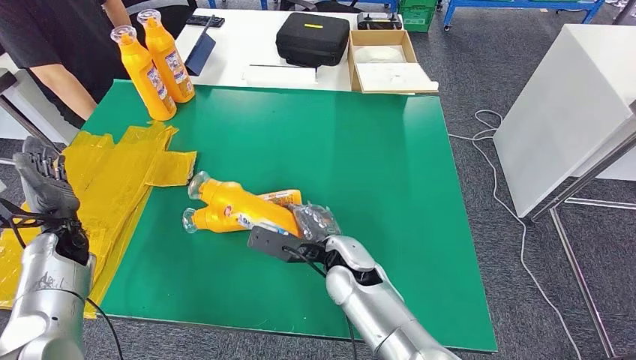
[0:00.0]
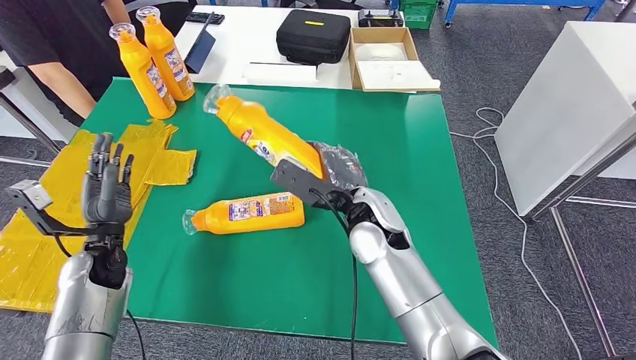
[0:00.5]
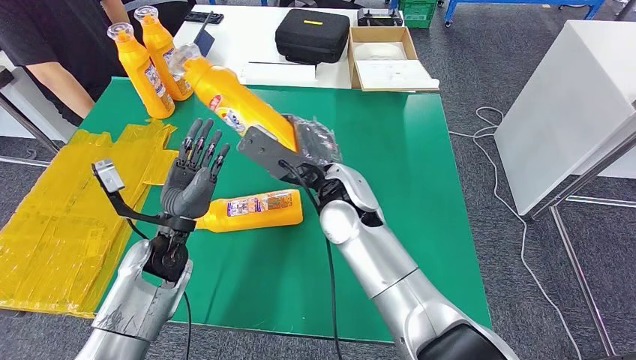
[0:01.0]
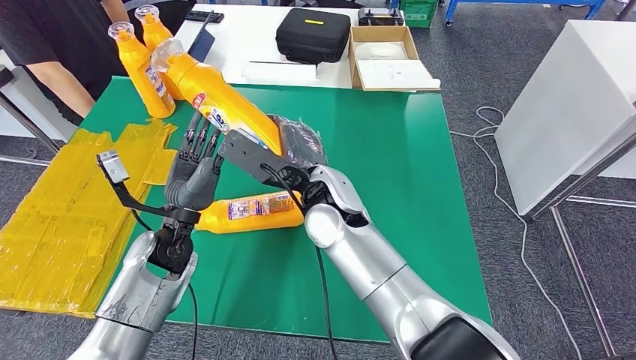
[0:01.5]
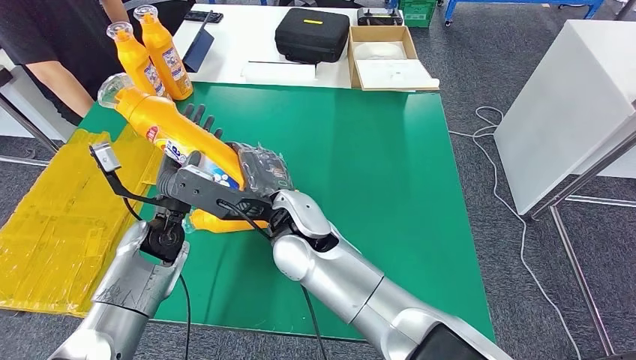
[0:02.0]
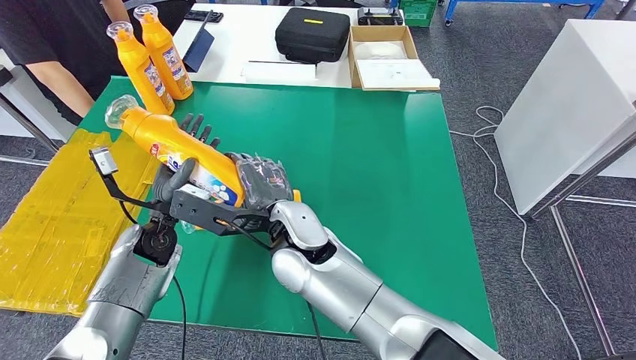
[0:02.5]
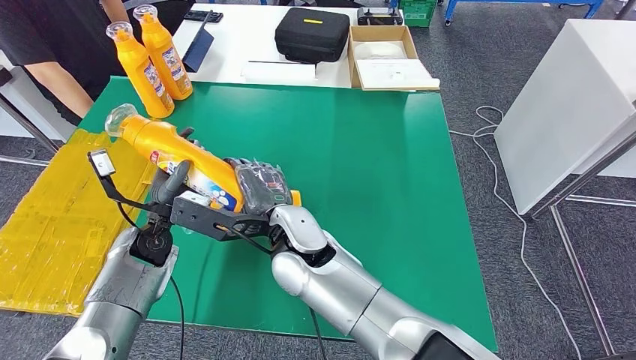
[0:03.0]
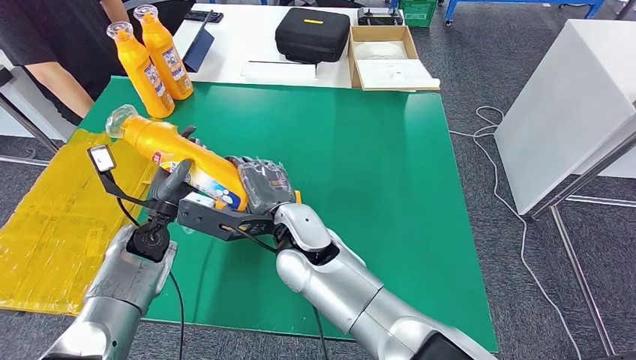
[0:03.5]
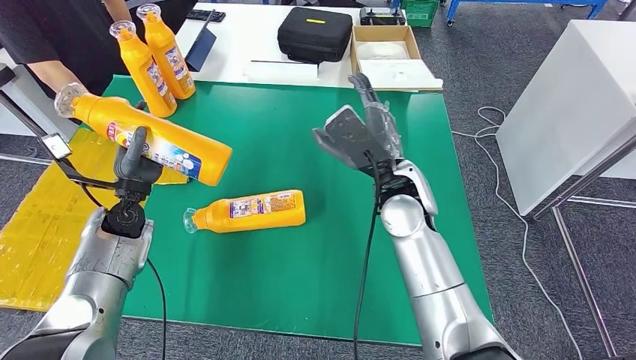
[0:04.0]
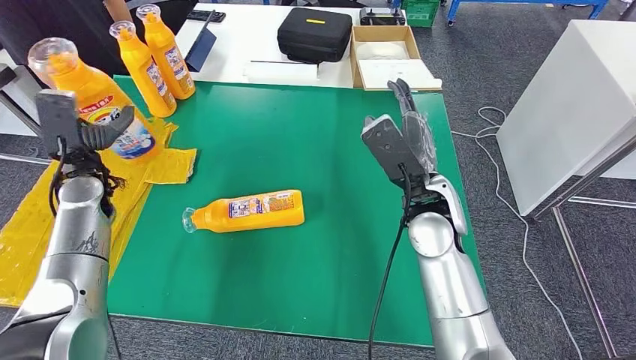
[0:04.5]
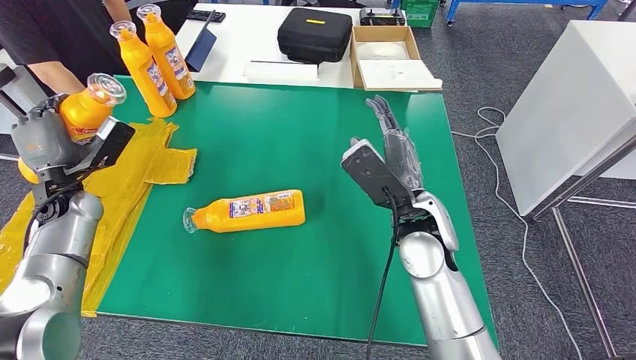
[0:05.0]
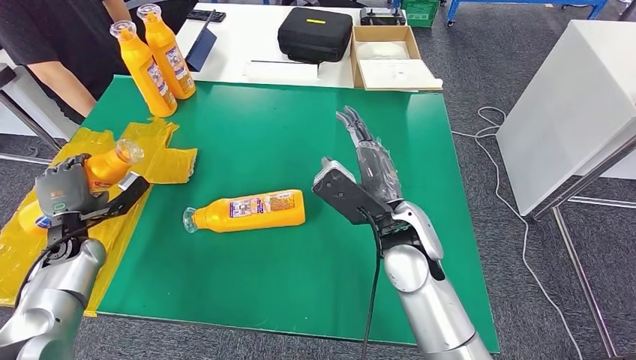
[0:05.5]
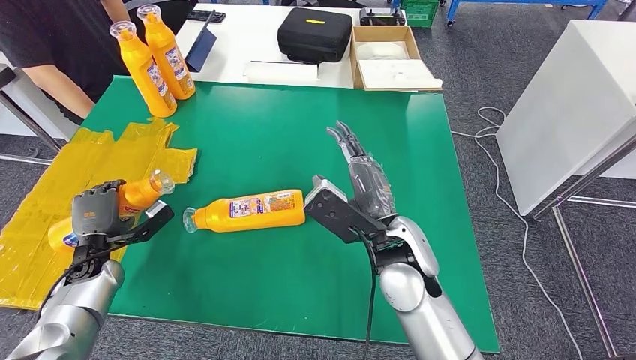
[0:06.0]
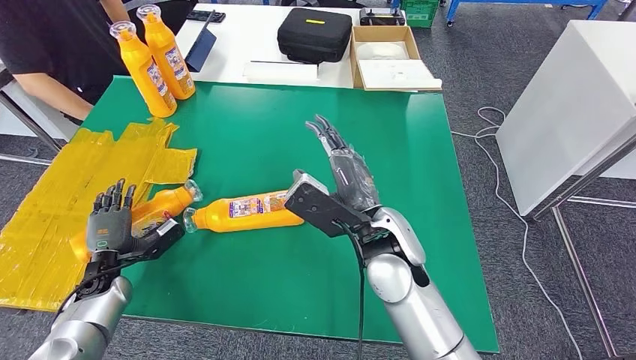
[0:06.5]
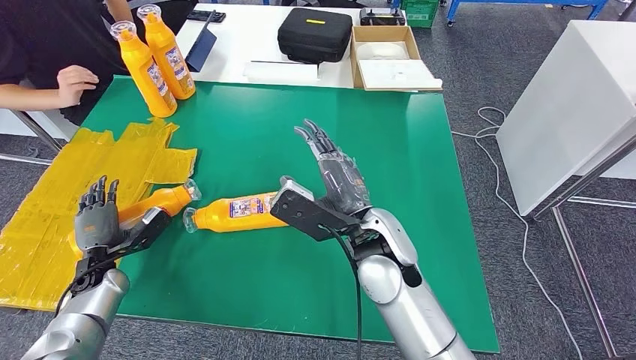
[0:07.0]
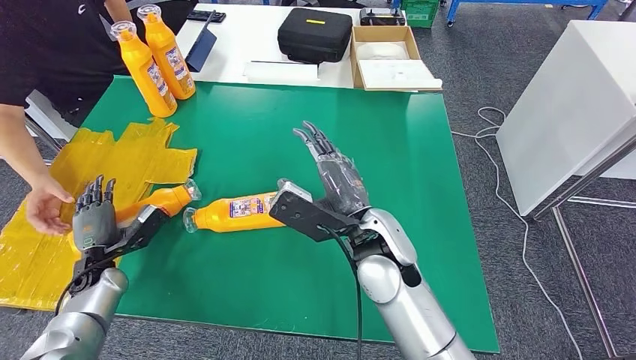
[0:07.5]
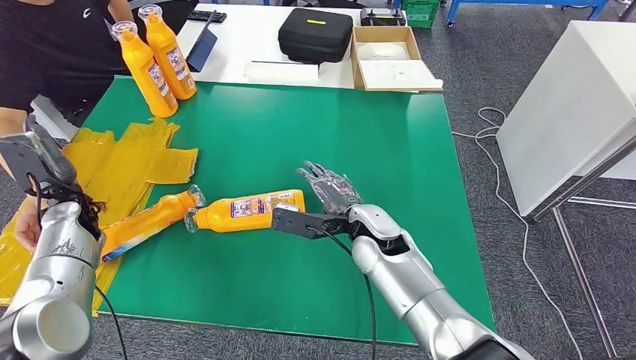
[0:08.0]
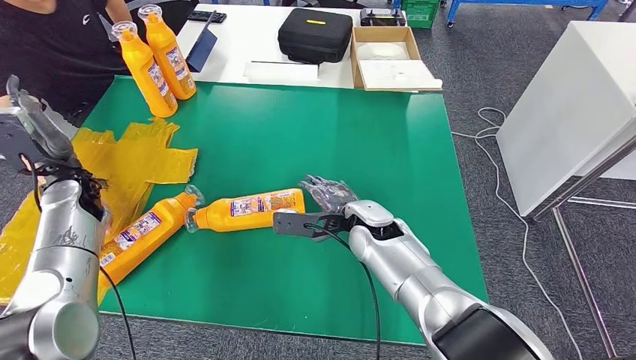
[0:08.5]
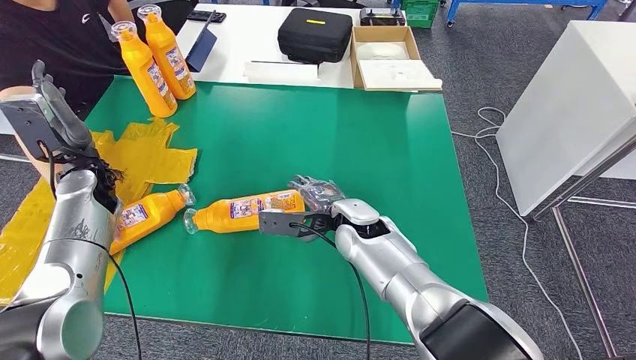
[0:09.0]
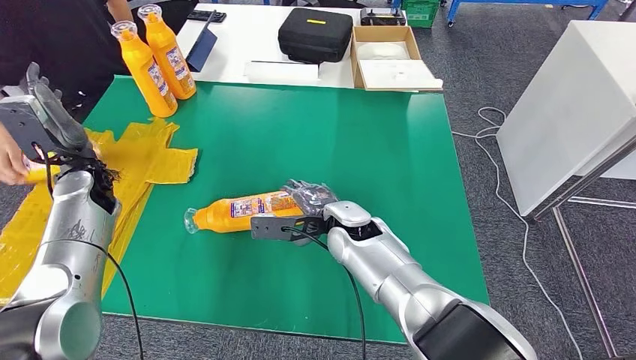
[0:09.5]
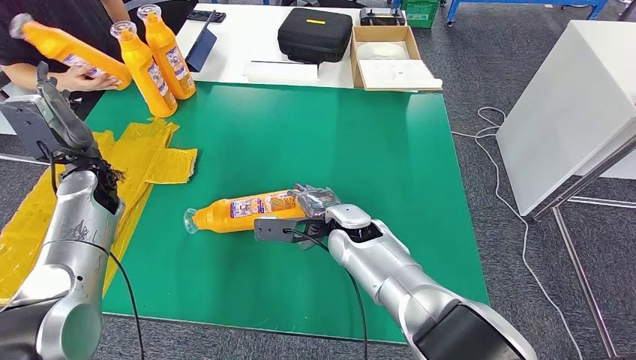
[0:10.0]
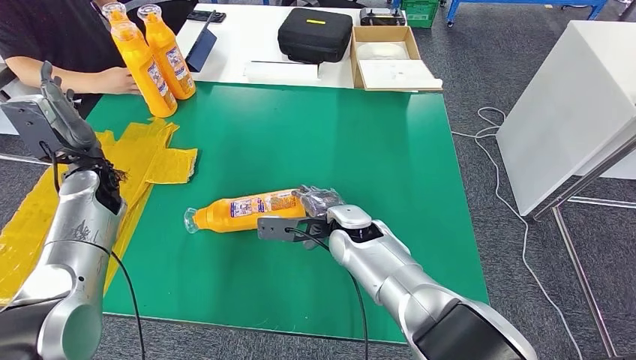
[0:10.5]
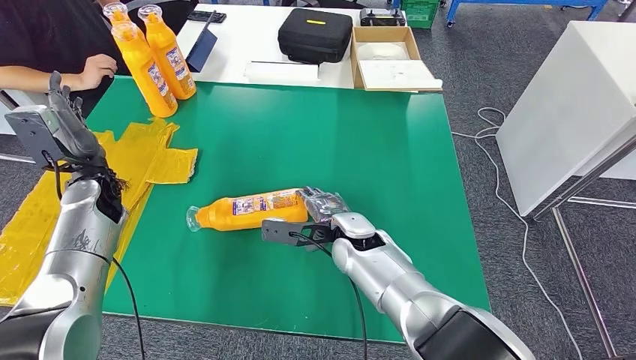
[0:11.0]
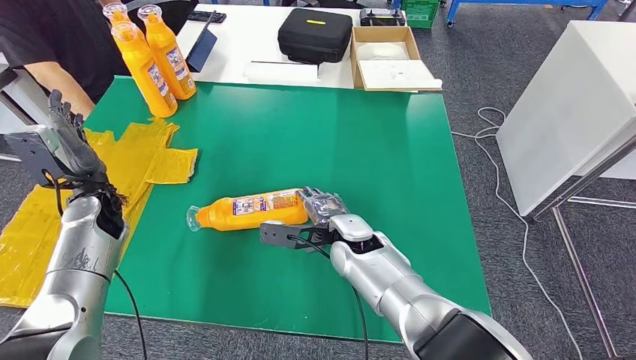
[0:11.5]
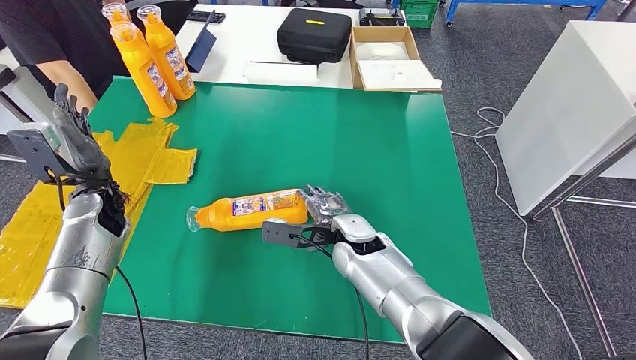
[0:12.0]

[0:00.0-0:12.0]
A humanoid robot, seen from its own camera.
Step, 0:01.5 to 0:06.5: Flip the fast-moving consumer goods bottle to the front side.
0:06.0 to 0:08.0: The left hand goes roughly 10 cm upward and forward. The right hand shifts roughly 10 cm forward and downward.
0:10.0 to 0:12.0: There are only small adjustments of the hands.

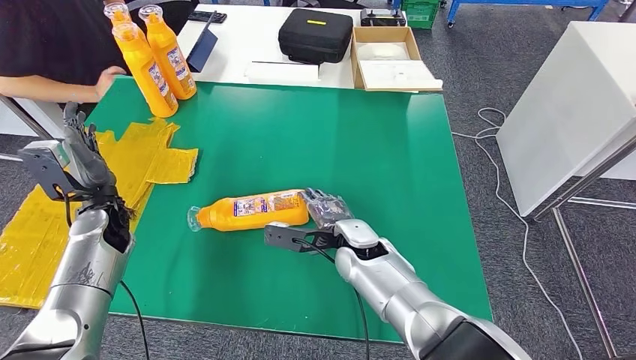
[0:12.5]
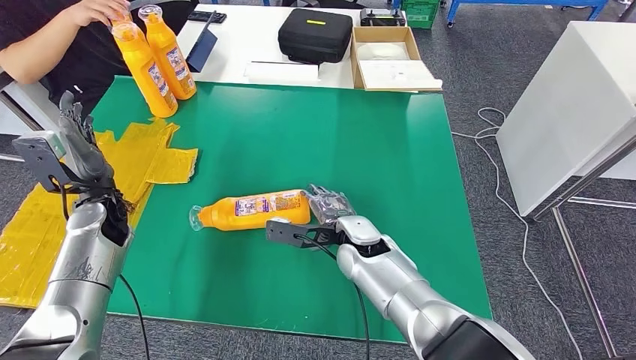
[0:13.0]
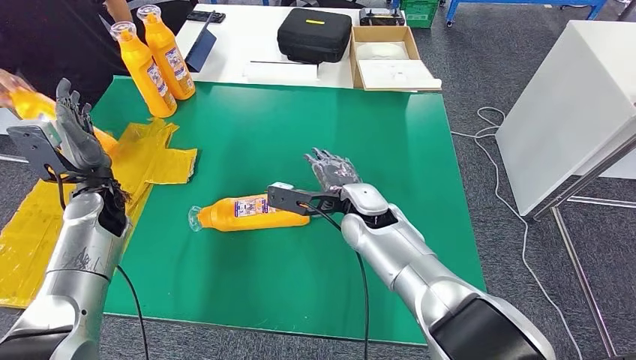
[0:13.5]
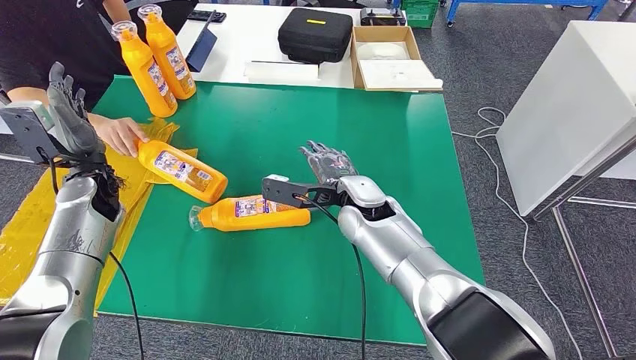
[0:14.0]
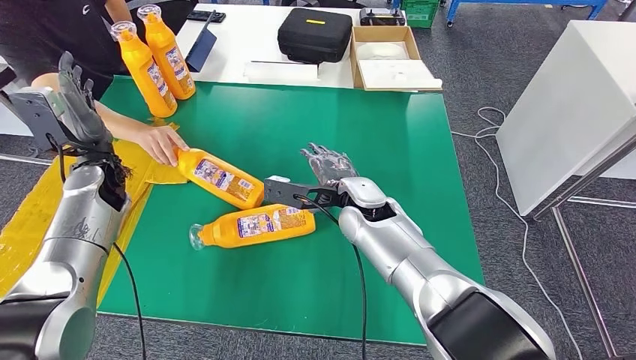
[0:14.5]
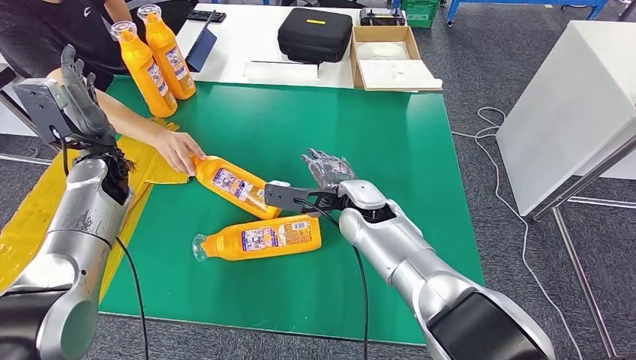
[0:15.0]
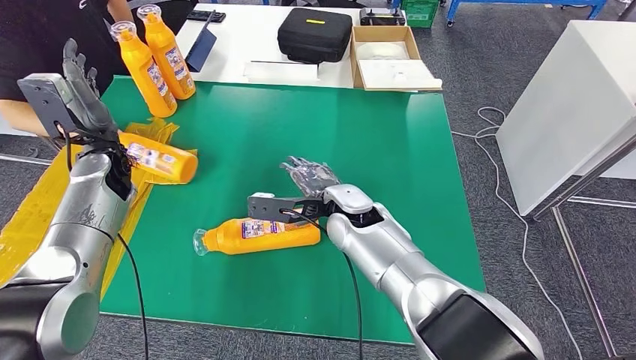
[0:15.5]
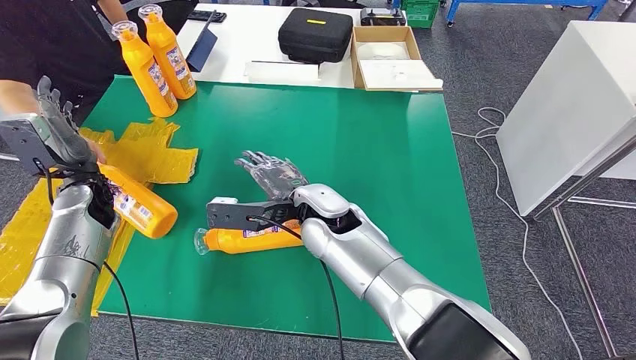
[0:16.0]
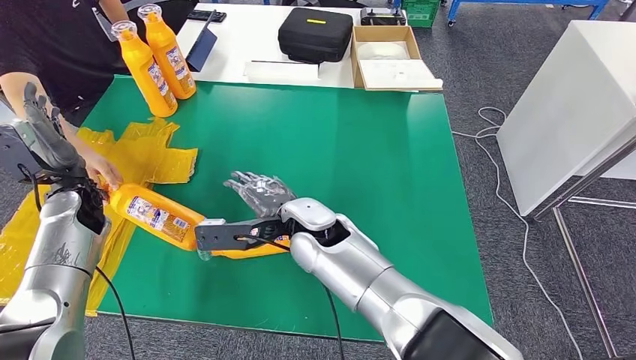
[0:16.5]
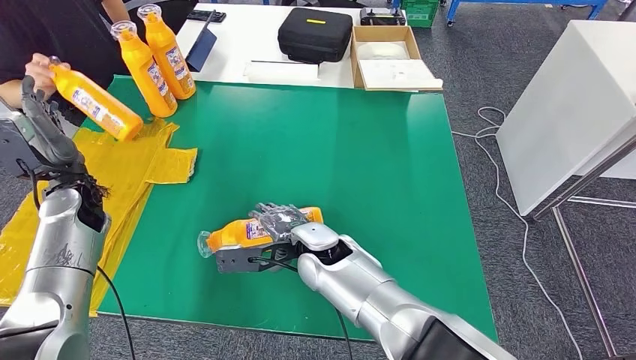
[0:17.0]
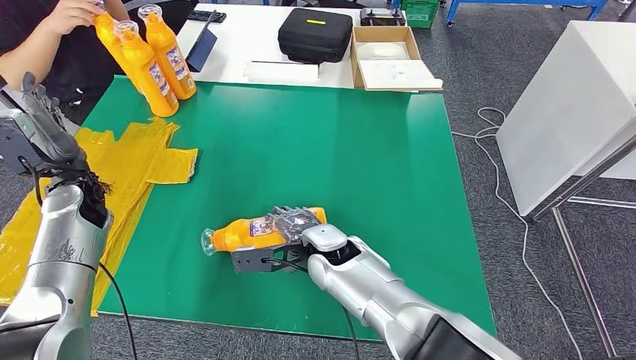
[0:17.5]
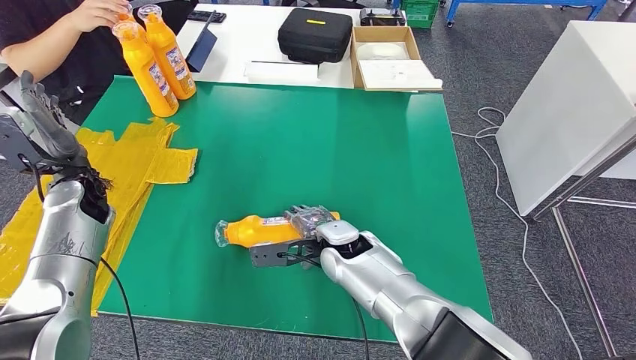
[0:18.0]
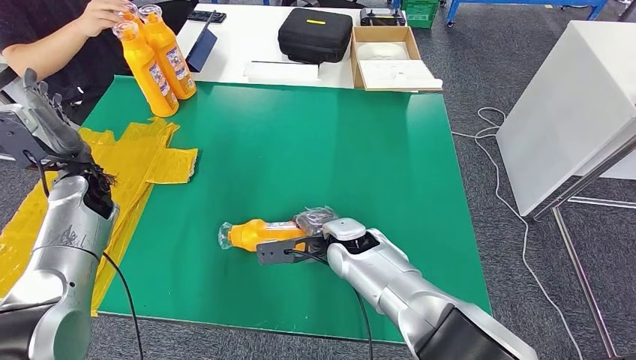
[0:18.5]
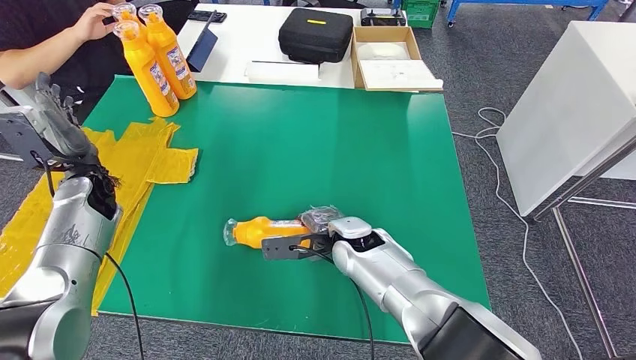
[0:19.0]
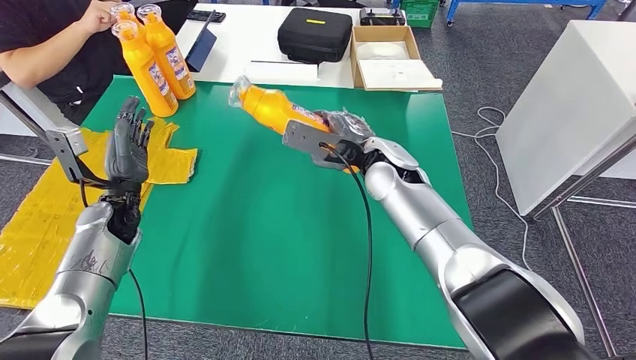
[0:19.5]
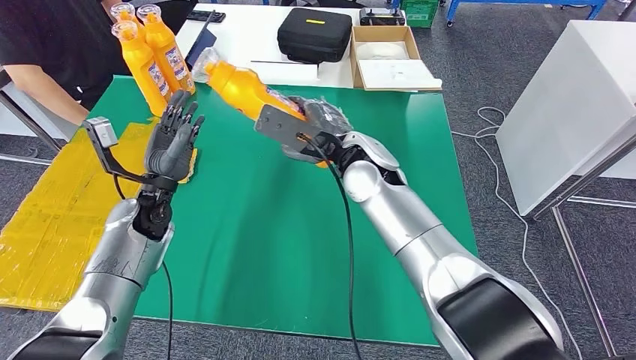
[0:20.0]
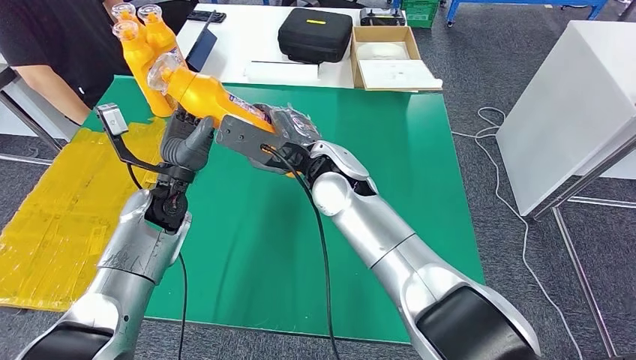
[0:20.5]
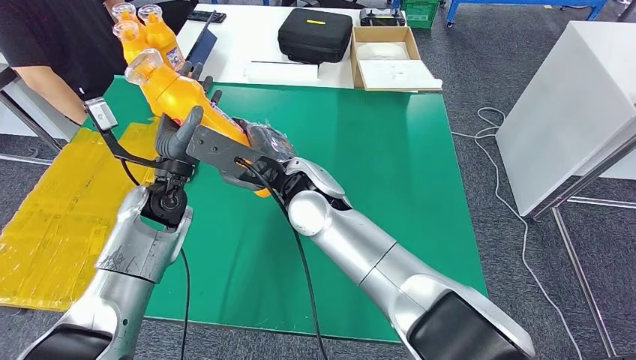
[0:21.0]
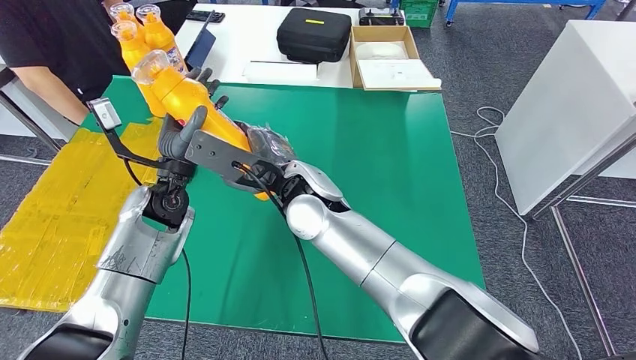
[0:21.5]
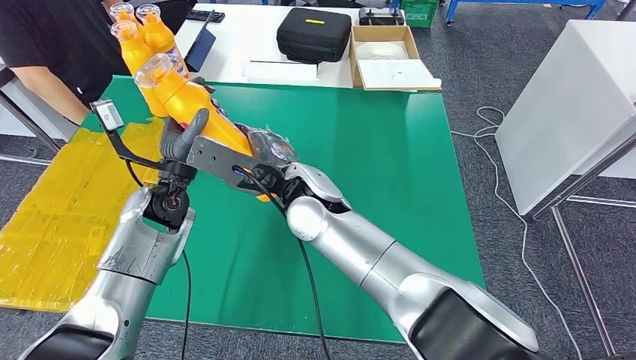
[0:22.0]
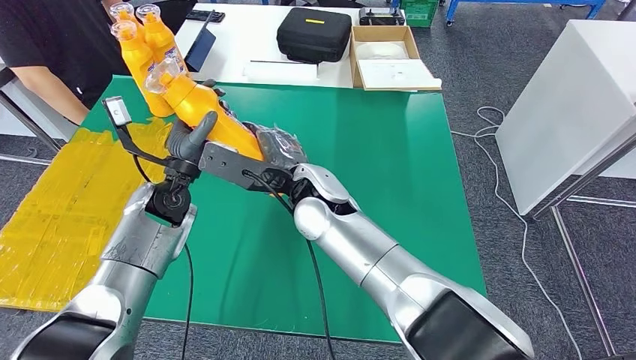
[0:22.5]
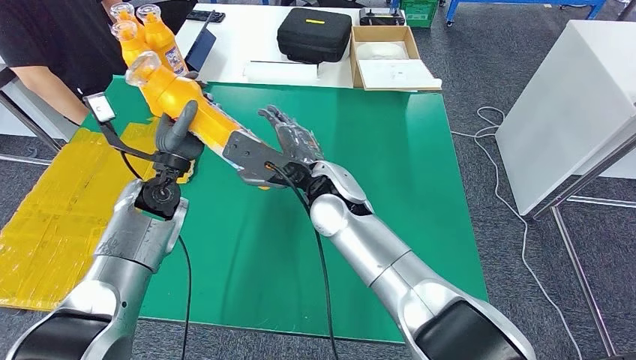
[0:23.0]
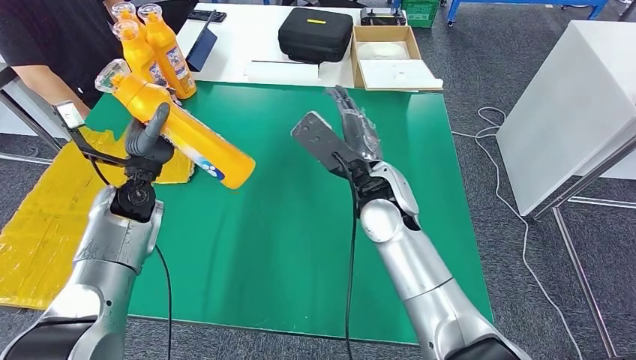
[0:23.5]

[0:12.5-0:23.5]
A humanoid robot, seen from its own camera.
Step, 0:12.5 to 0:23.0: Pick up the fast-moving consumer goods bottle from the table.
0:16.0 to 0:18.0: The right hand moves downward, approximately 10 cm.
